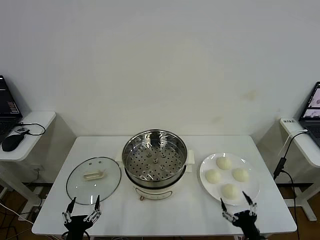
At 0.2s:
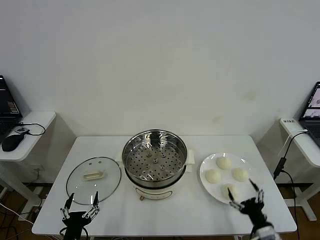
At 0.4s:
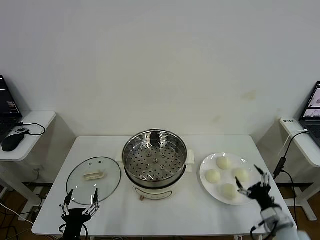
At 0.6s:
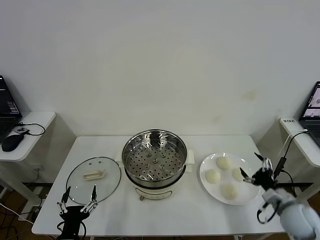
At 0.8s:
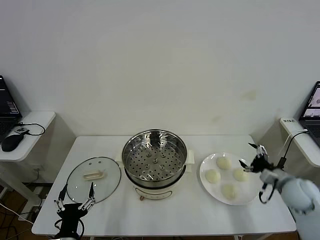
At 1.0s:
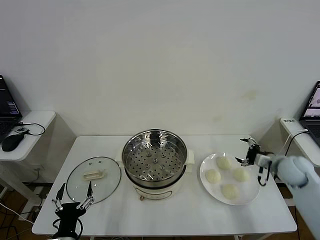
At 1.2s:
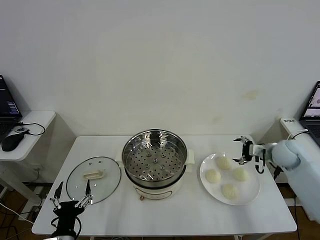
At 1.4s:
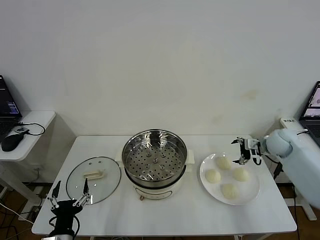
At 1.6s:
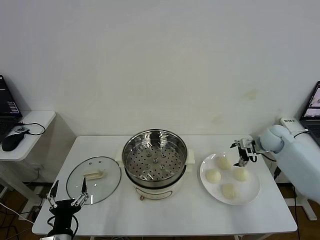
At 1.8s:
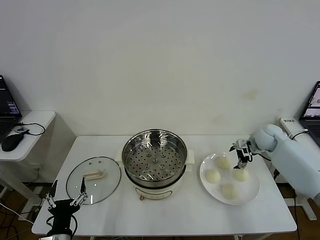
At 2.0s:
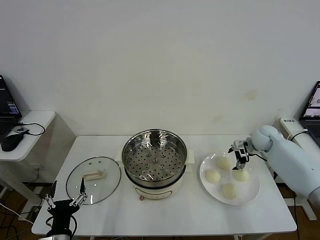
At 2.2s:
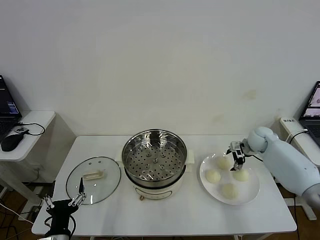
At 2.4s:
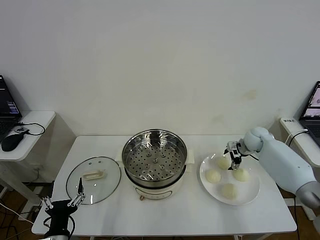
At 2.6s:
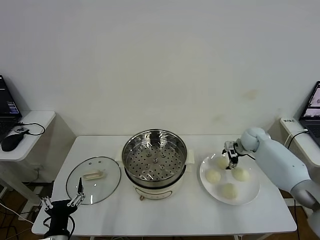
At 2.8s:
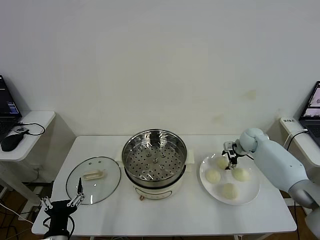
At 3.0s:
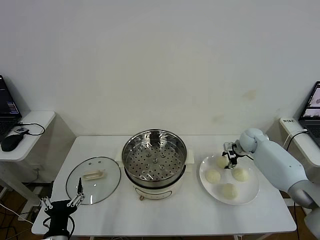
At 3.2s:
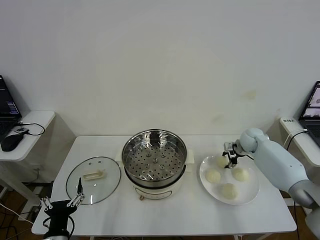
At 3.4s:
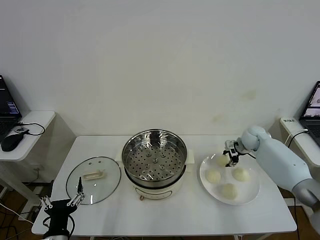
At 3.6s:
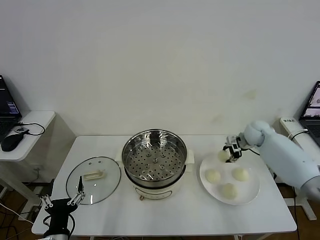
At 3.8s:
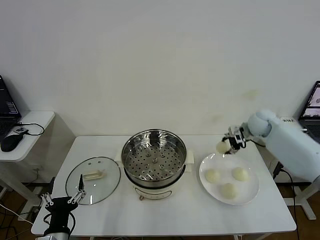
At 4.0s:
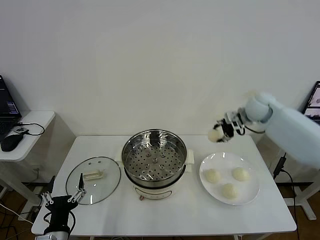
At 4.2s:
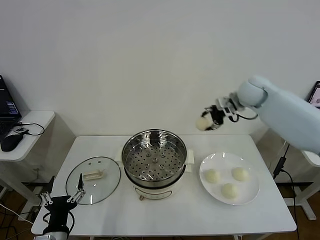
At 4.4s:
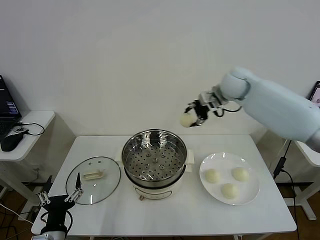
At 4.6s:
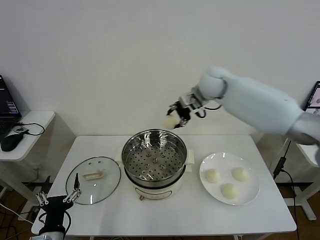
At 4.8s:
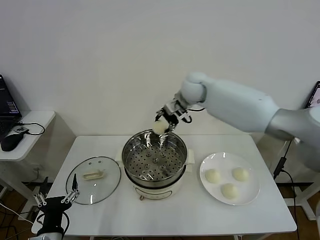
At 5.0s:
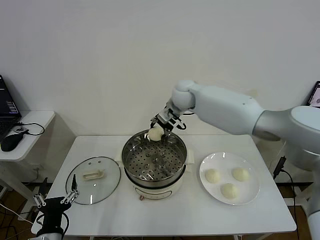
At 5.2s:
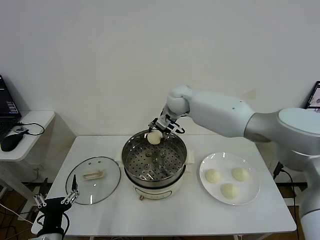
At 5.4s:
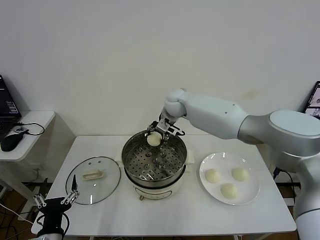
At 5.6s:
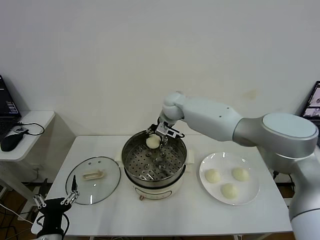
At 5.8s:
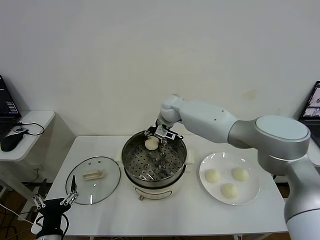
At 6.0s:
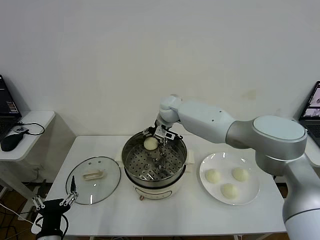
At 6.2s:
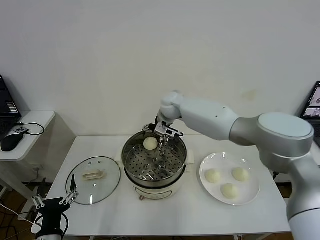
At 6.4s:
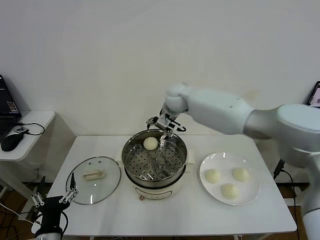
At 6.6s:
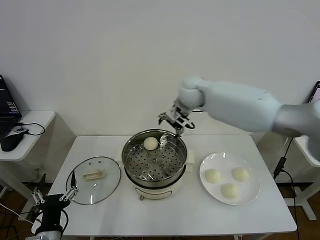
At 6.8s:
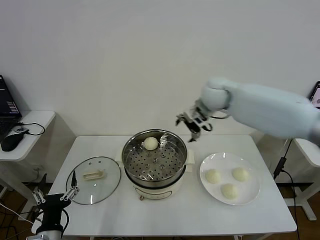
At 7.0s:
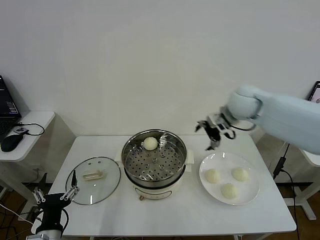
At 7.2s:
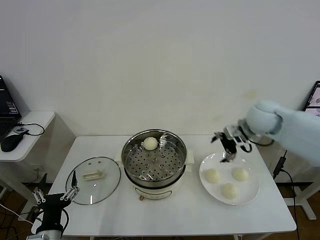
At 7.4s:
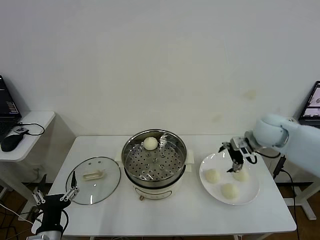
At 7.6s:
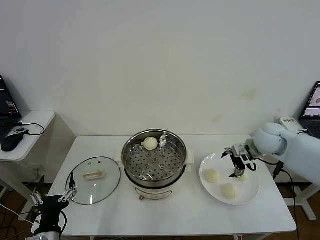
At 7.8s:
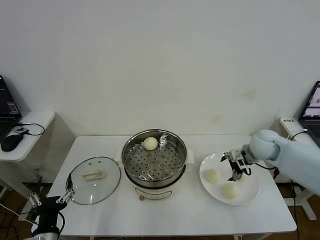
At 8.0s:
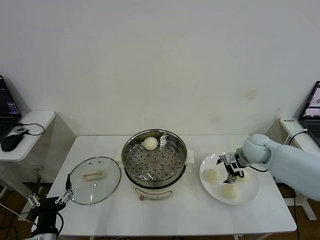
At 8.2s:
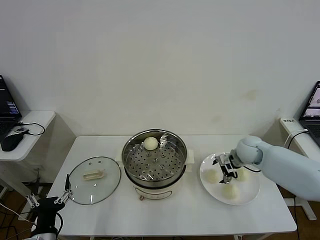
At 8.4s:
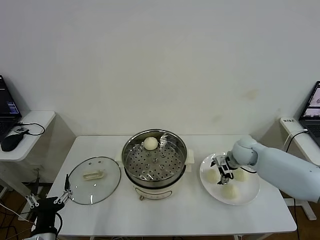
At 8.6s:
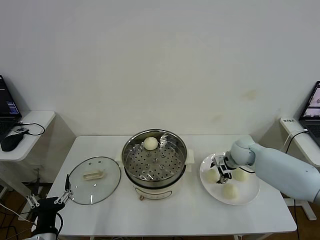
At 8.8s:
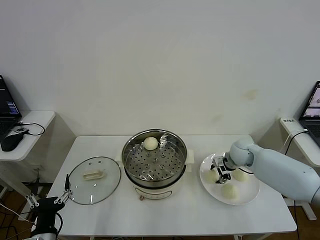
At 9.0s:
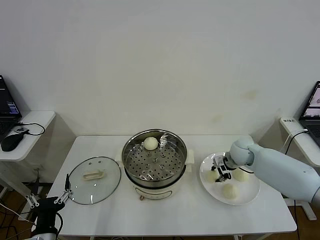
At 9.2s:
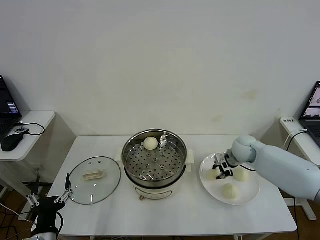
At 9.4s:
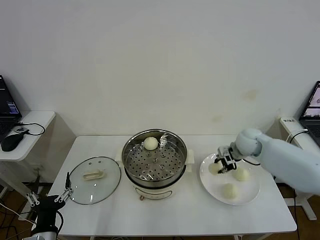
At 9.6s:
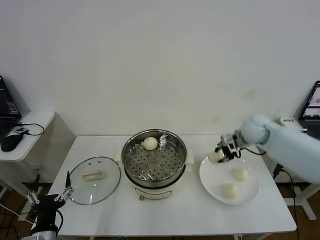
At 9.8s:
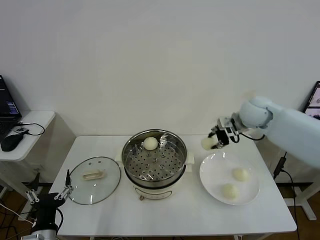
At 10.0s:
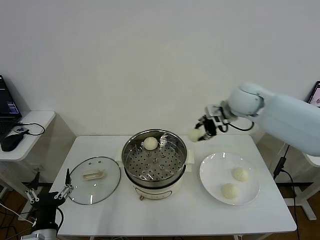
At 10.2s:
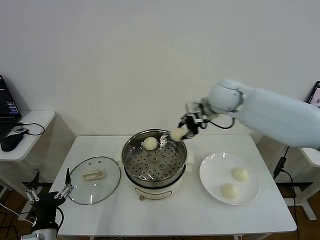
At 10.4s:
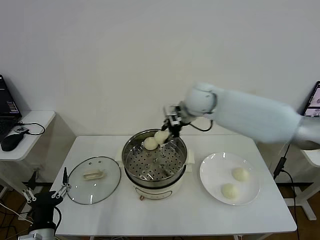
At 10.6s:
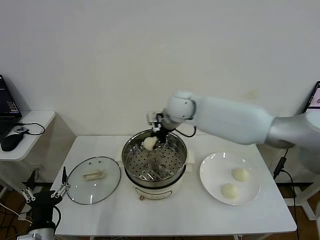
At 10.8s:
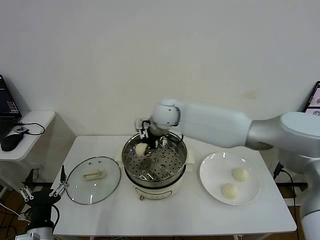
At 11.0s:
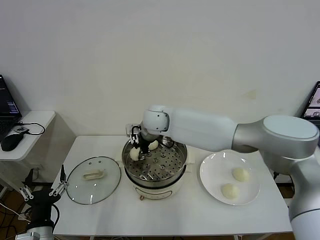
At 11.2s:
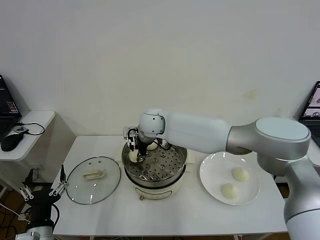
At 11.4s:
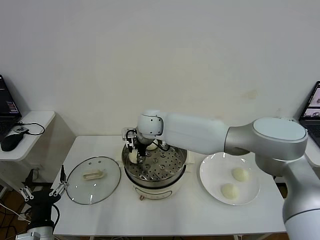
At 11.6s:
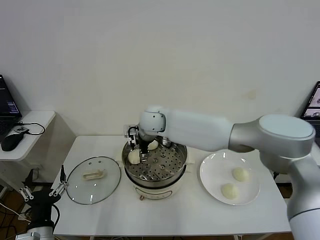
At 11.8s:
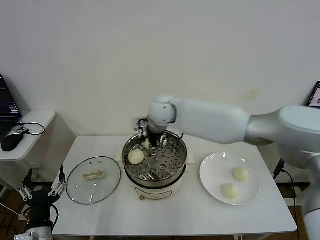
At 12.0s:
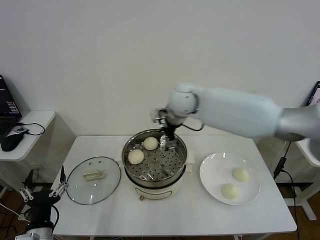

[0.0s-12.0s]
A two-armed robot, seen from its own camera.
Step, 0.0s to 3.2s: Grasp the baozi in the plate with right gripper.
Step, 3.4s to 6.2s: Place the baozi on the steamer with right gripper.
Step, 6.4s to 9.0s: Grasp the baozi in the plate with right gripper.
Step, 9.2s to 11.4s: Place the baozi on the steamer with right gripper.
1.6s to 3.0s: The right gripper heads downward, covering about 5 cm, and closes.
3.0s to 4.4s: The right gripper travels upward and to the left by some 30 cm.
4.4s to 6.0s: The right gripper moves to the left and downward, roughly 20 cm, and opens its fingers.
6.0s to 7.6s: The right gripper goes some 35 cm to the right and backward.
7.6s to 9.0s: The right gripper moves downward, approximately 10 cm, and closes up.
9.0s to 10.4s: The right gripper heads to the left and upward, covering about 30 cm.
10.4s to 12.0s: The right gripper goes to the left and returns, some 15 cm each way, and opens up.

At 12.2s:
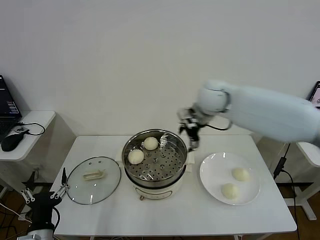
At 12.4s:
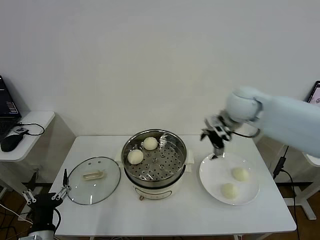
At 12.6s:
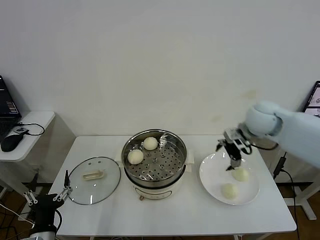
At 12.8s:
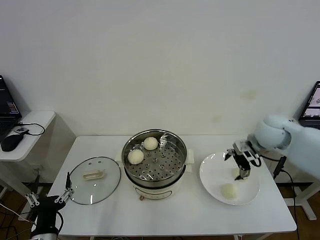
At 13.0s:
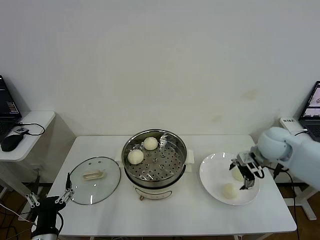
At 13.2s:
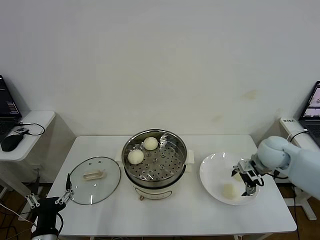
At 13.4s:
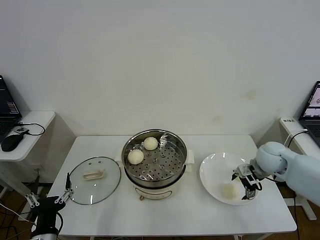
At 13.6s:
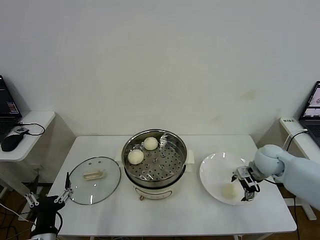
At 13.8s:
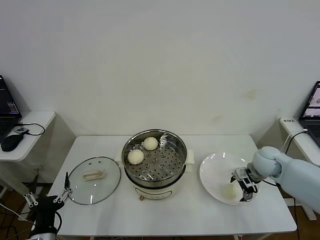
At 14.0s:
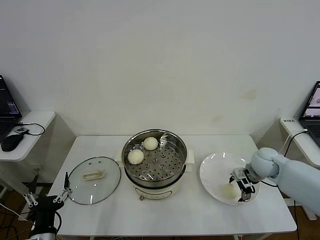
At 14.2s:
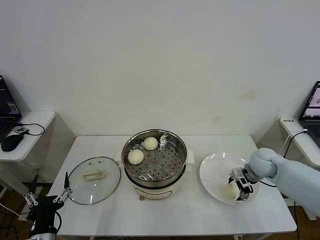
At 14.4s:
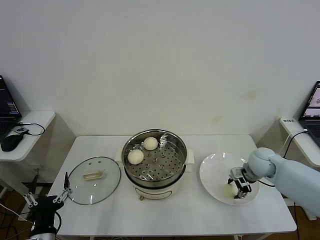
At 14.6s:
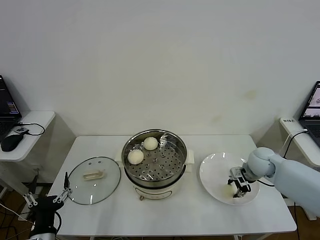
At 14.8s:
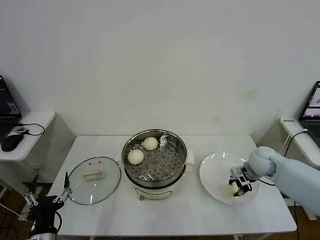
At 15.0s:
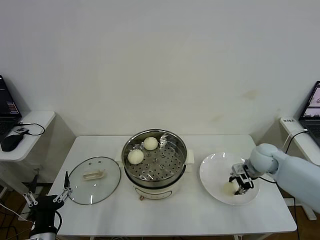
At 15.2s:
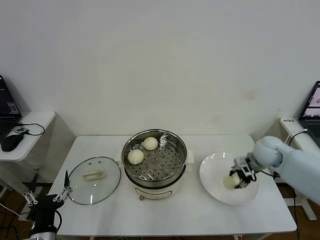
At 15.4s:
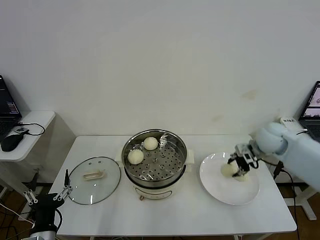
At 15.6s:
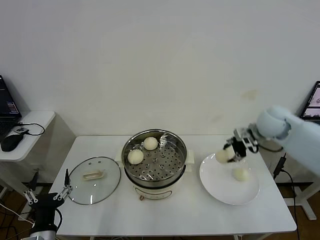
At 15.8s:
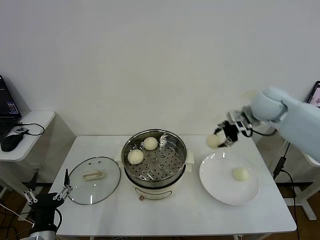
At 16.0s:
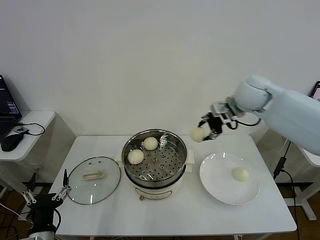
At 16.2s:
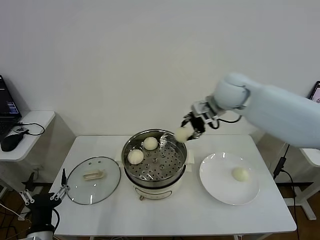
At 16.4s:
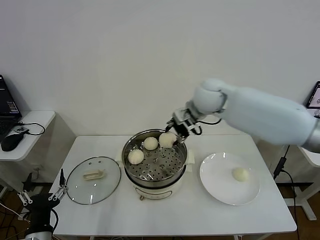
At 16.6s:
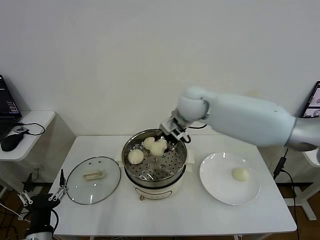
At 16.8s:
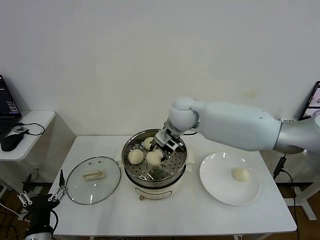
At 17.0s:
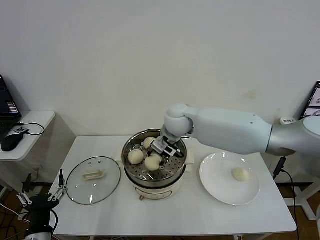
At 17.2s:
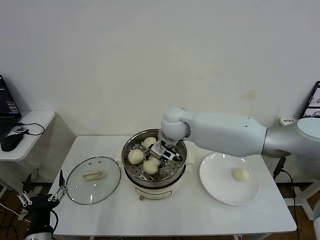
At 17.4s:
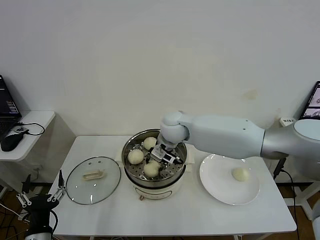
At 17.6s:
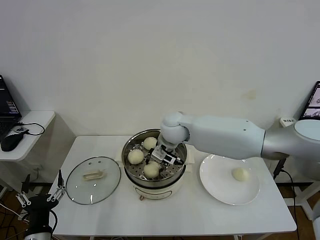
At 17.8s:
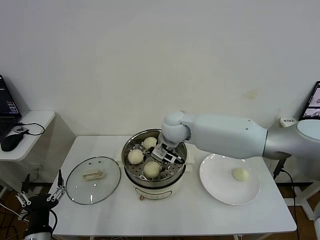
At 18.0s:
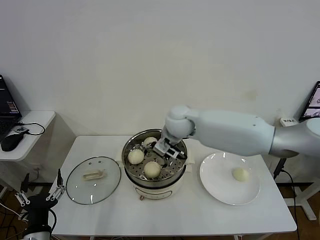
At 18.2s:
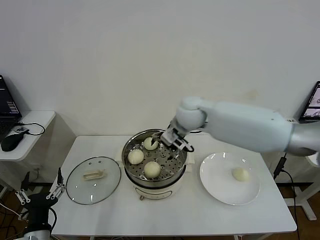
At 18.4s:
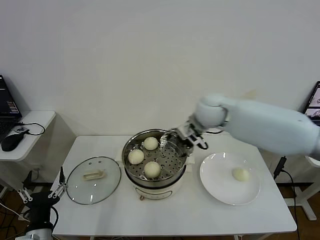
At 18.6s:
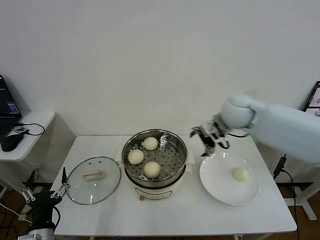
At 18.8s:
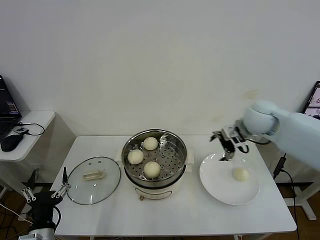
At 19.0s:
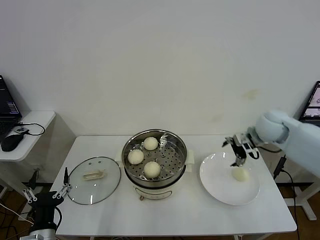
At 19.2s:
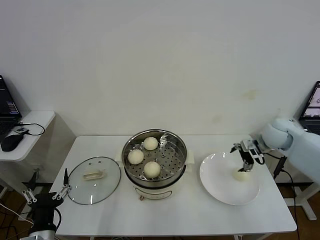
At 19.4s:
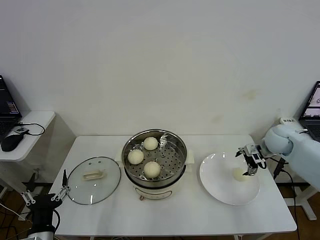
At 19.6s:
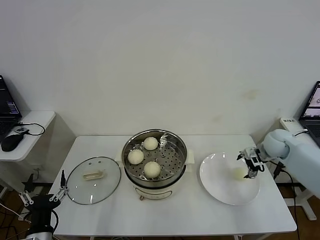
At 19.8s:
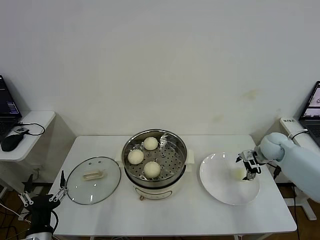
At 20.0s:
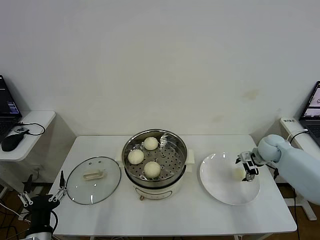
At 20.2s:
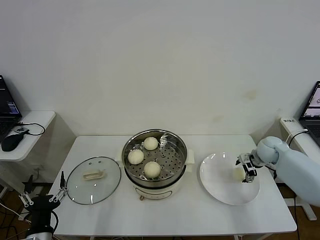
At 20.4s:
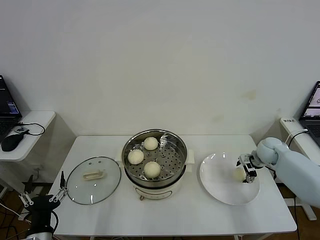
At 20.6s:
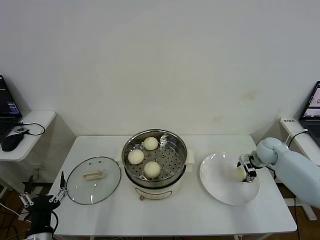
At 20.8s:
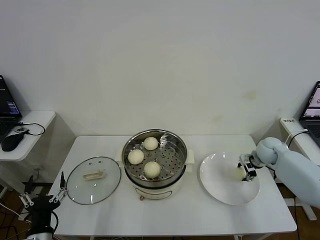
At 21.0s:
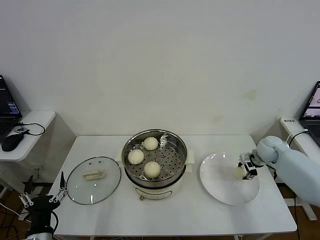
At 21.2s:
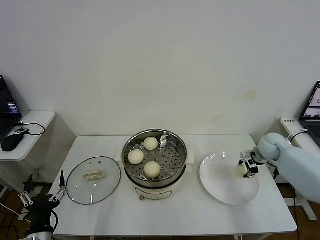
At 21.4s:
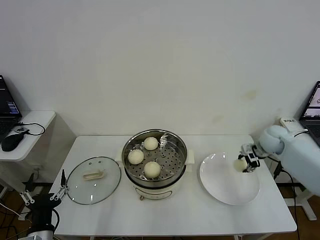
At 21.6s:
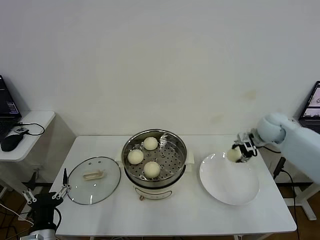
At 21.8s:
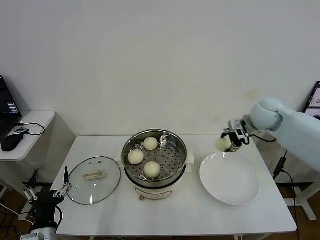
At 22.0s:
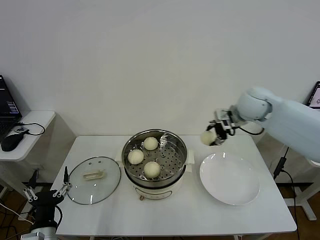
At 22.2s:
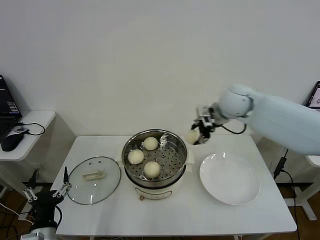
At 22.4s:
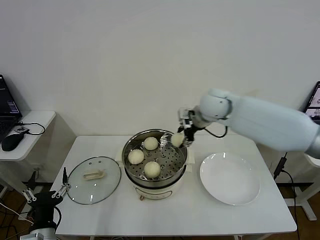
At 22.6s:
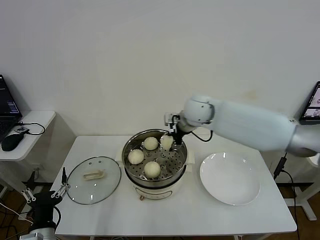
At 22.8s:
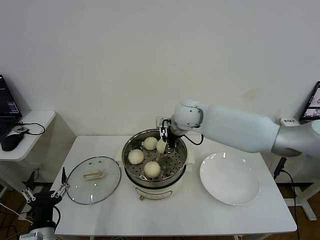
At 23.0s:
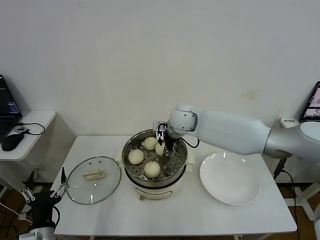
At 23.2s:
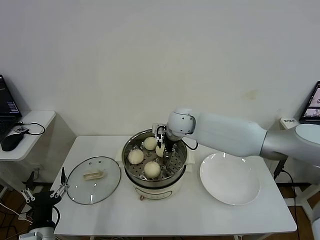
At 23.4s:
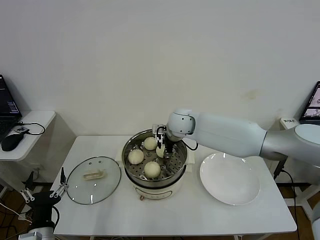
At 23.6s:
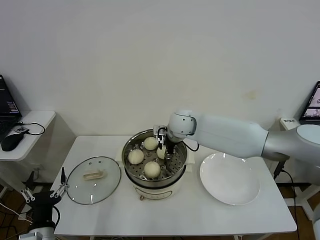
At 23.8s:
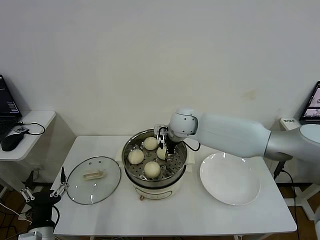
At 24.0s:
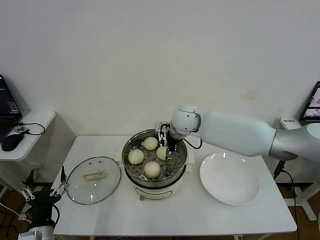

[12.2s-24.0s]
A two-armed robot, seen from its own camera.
Step, 12.2s to 14.6s: Grasp the baozi in the plate with right gripper.
Step, 15.0s to 17.8s: Place the baozi on the steamer with right gripper.
Step, 18.0s to 21.0s: Grasp the baozi in the plate with right gripper.
Step, 21.2s to 24.0s: Place the baozi on the steamer with right gripper.
12.2s to 13.6s: The right gripper is displaced downward, to the right and backward by about 30 cm.
13.6s to 15.2s: The right gripper closes up.
15.2s to 16.6s: The right gripper shifts some 30 cm to the left and upward.
16.6s to 18.2s: The right gripper opens up.
18.2s to 19.6s: The right gripper heads to the right and downward, covering about 35 cm.
19.6s to 21.0s: The right gripper closes.
21.0s to 22.6s: The right gripper is displaced to the left and upward by approximately 35 cm.
22.6s to 24.0s: The right gripper opens.
